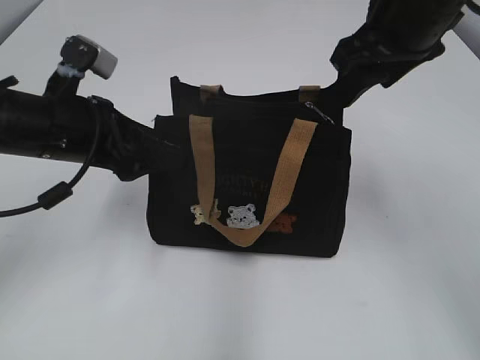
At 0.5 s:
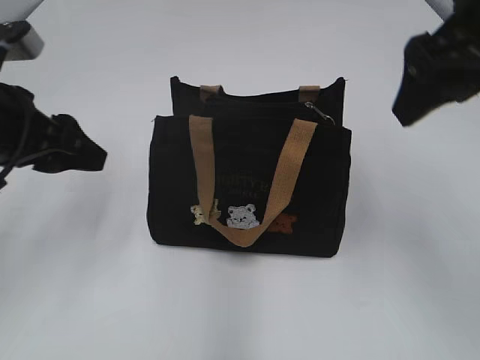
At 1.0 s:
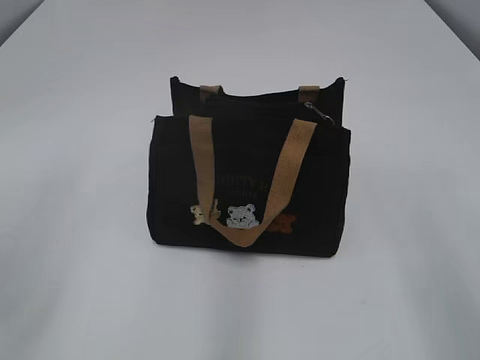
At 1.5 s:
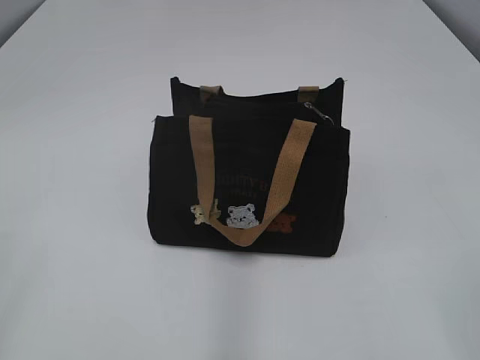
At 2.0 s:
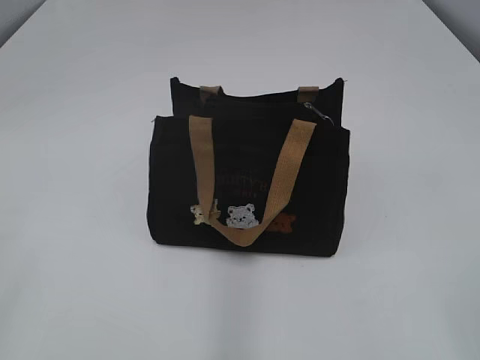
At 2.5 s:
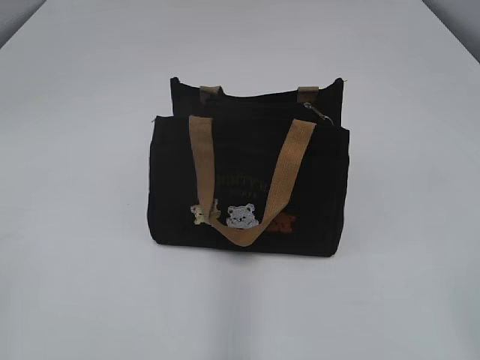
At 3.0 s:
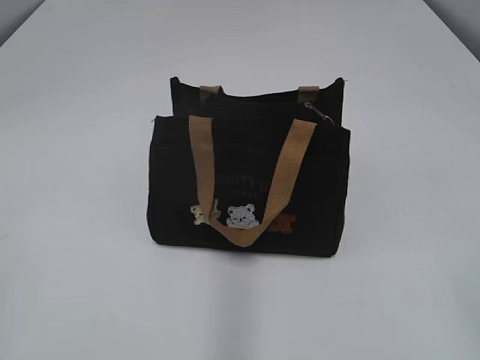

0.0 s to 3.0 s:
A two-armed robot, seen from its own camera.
0.0 to 1.5 s: The right gripper moves backward, some 35 cm. Meanwhile the left gripper travels backward and to the left by approximately 30 cm.
